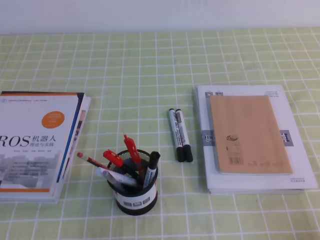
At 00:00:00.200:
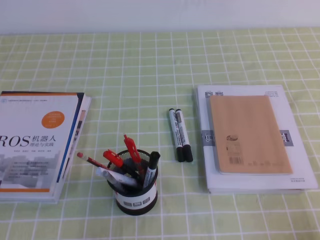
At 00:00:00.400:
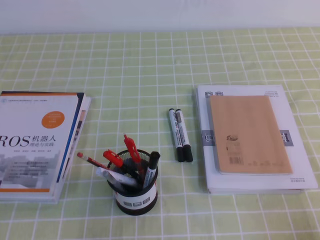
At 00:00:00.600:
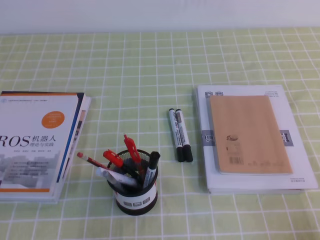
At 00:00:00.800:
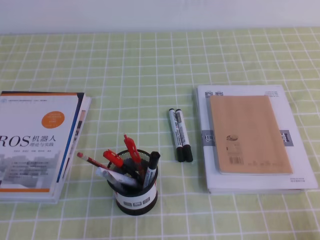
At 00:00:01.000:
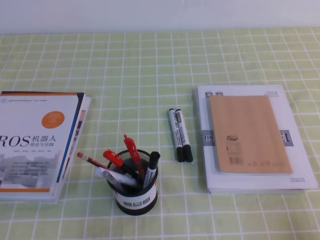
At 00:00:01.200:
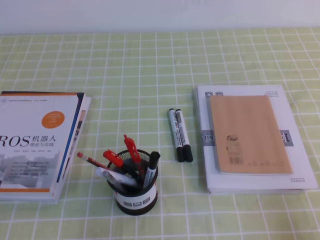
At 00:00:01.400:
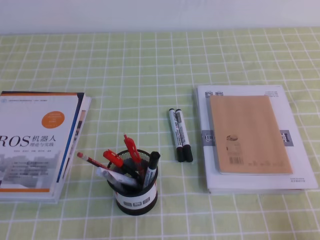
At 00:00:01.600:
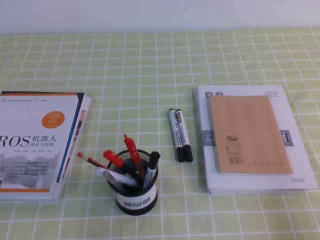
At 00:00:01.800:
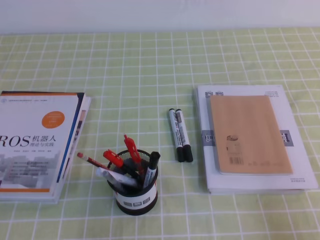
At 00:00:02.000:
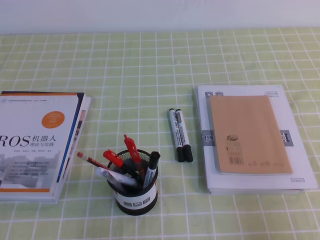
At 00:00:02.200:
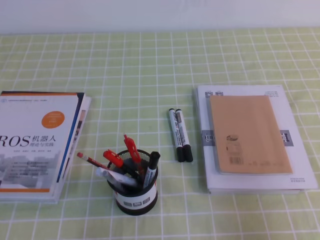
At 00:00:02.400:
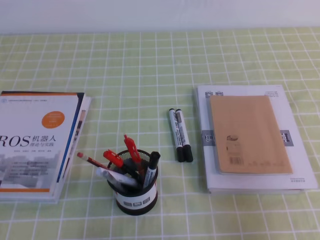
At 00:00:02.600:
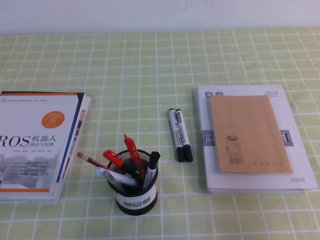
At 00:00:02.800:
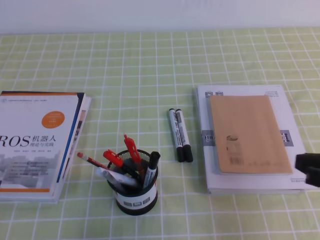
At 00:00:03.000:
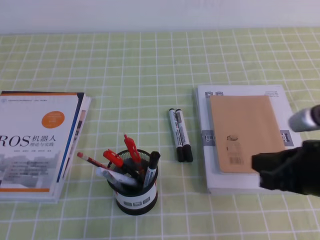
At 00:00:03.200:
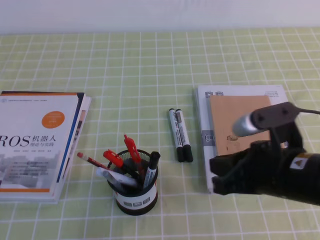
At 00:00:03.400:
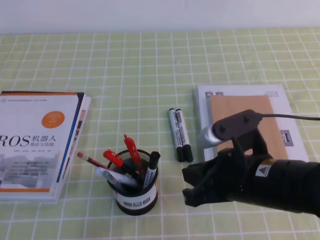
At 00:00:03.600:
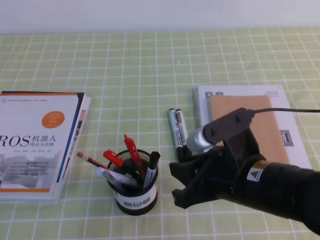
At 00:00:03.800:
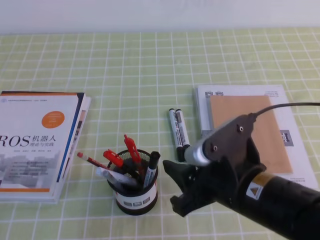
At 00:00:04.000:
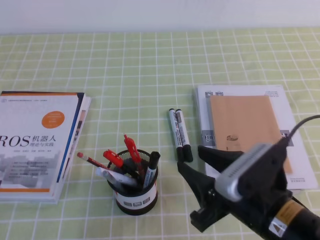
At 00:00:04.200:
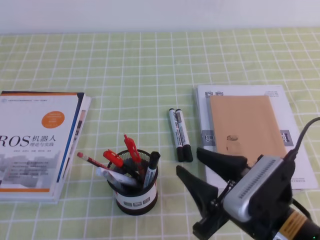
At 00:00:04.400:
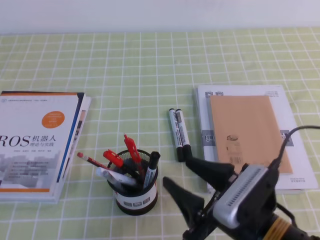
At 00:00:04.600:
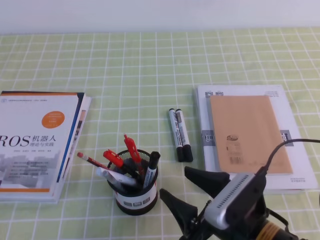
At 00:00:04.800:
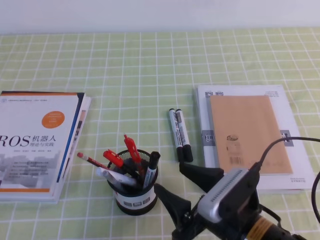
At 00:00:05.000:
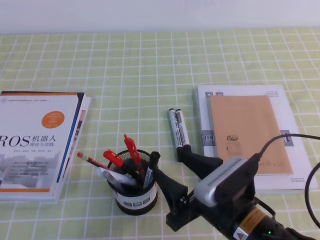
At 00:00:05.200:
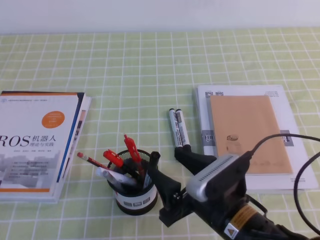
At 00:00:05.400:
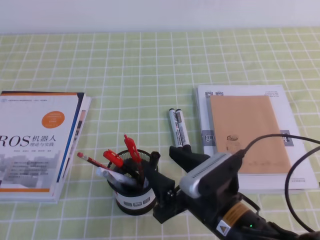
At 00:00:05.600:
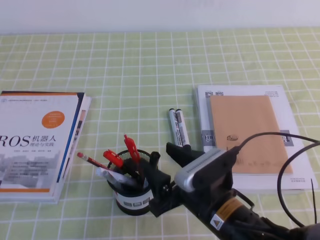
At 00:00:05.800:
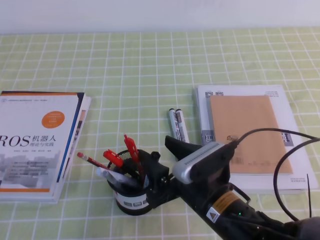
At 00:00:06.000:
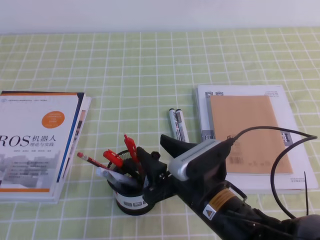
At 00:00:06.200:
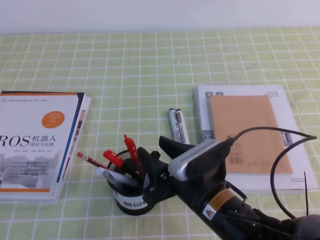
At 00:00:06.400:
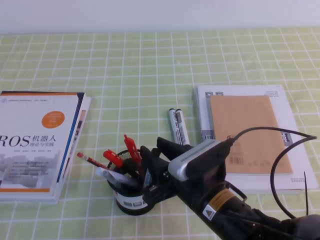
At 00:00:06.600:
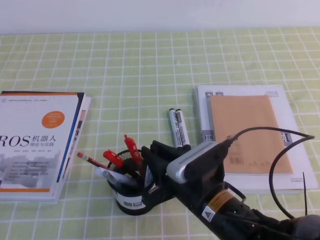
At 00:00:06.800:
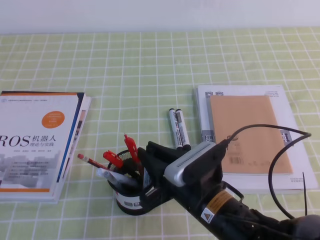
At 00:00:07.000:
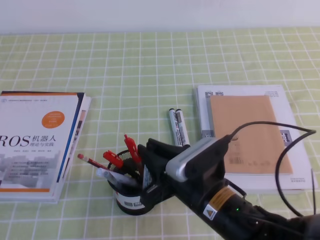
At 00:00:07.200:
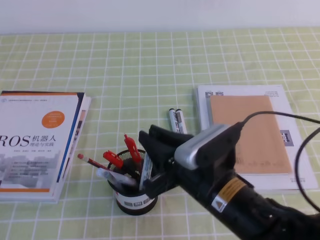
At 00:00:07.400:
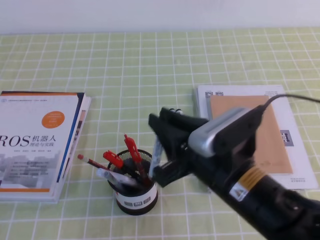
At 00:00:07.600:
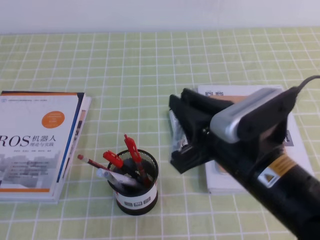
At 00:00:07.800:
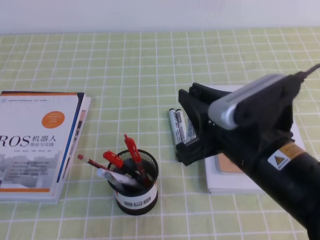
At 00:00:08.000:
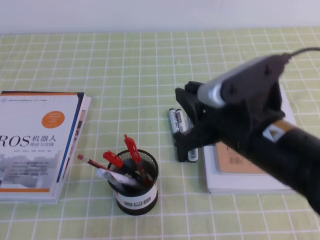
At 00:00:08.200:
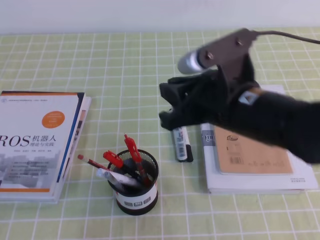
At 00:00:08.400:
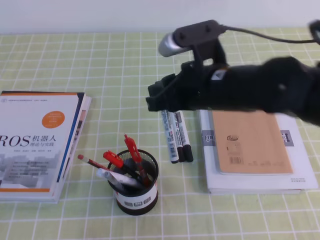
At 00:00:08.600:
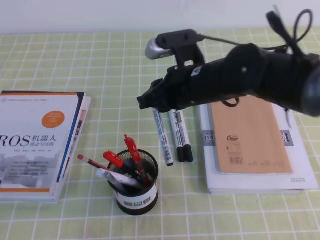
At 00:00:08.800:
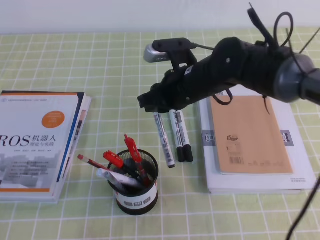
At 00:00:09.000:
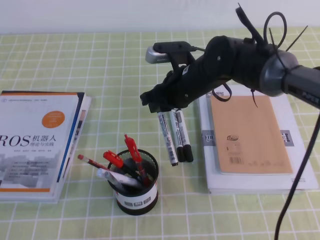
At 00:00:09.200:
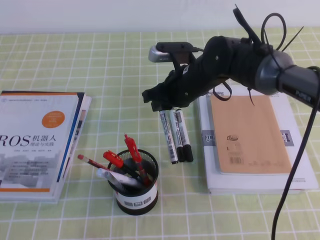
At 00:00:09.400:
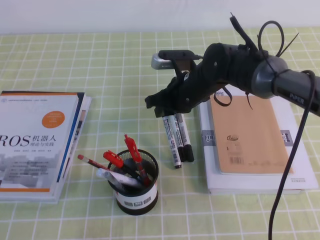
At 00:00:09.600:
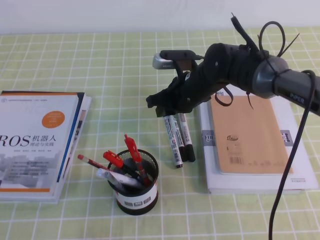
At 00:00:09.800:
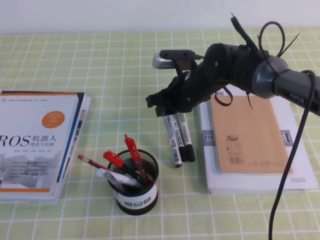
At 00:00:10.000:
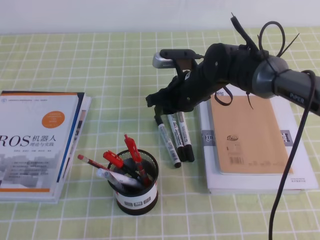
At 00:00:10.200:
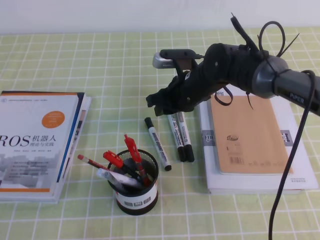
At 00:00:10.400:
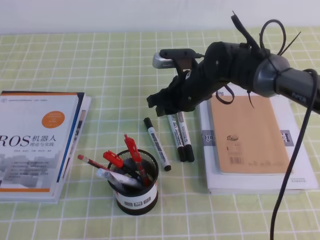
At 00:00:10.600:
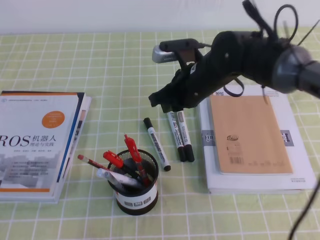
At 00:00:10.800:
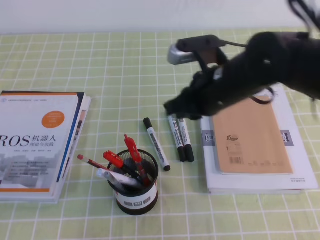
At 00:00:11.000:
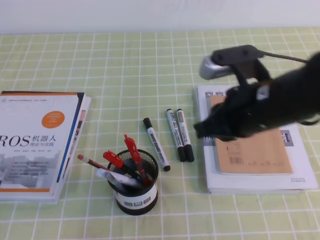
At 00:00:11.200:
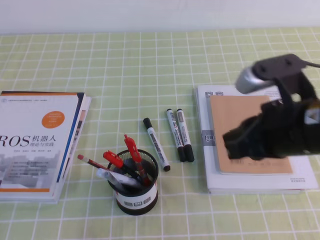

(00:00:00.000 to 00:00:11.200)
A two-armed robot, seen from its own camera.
00:00:01.600 - 00:00:03.200: The right gripper goes about 20 cm to the left, forward and upward.
00:00:03.200 - 00:00:04.800: The right gripper goes about 10 cm downward and to the left, and opens up.
00:00:04.800 - 00:00:06.400: The right gripper shifts by roughly 5 cm, and closes.
00:00:06.400 - 00:00:08.000: The right gripper travels upward by some 15 cm, and closes up.
00:00:08.000 - 00:00:09.600: The right gripper heads forward and downward, covering approximately 25 cm.
00:00:09.600 - 00:00:11.200: The right gripper goes some 25 cm backward, to the right and upward.

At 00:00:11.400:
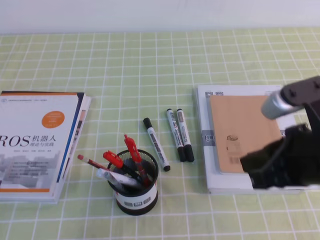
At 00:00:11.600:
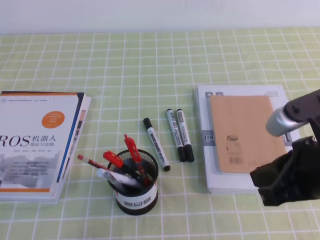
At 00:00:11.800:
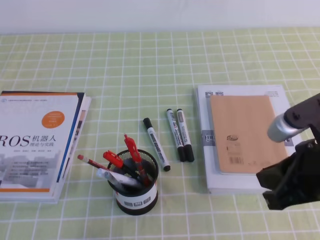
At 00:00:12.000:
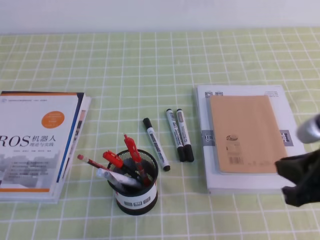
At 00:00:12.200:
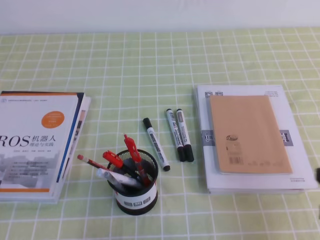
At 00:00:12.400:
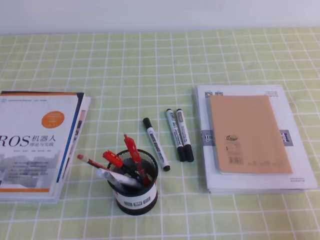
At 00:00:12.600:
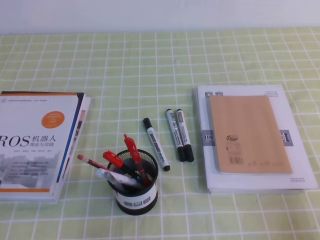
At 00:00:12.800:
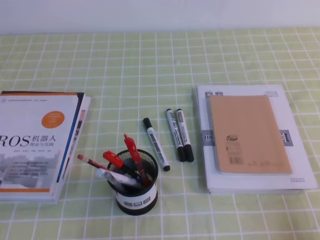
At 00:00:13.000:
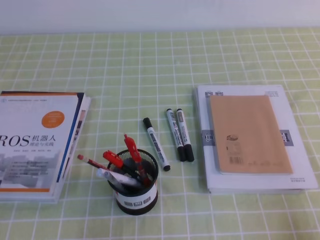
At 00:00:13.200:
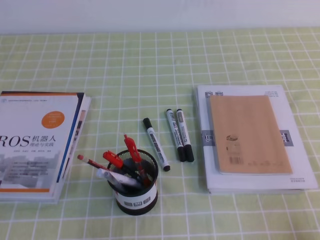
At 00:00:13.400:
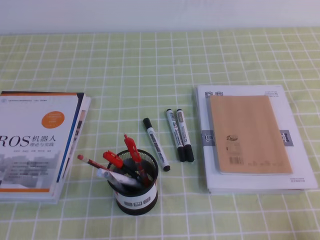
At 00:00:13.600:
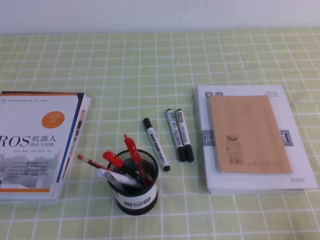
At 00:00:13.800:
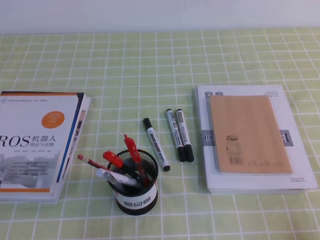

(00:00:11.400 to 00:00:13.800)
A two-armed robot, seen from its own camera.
Step, 00:00:11.400 - 00:00:13.800: Pick up the pen from the pen holder.
00:00:11.400 - 00:00:12.600: The right gripper shifts some 20 cm to the right, downward and backward.
